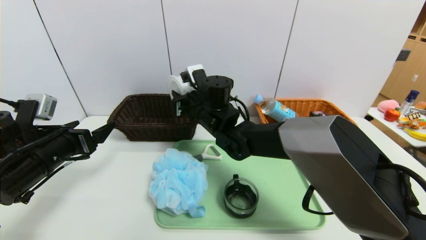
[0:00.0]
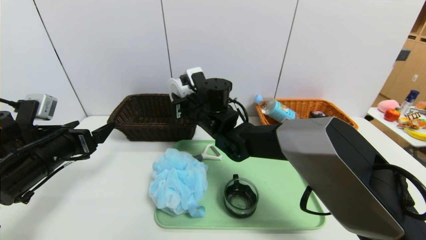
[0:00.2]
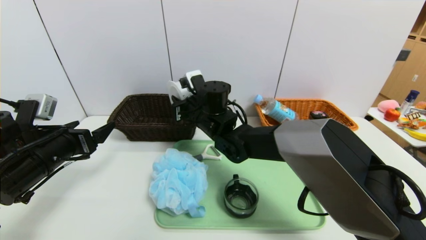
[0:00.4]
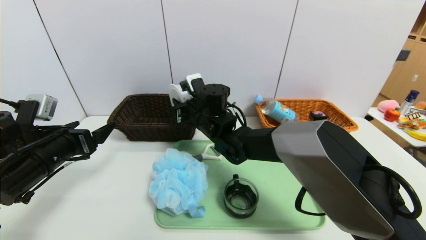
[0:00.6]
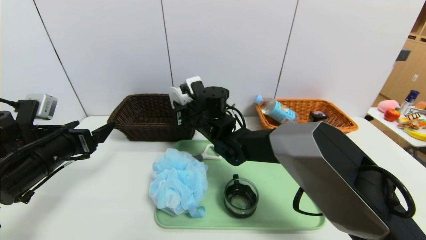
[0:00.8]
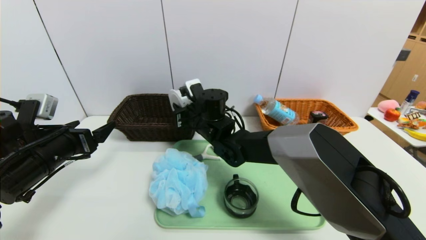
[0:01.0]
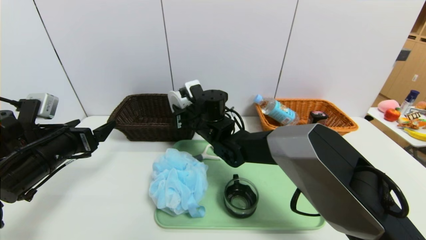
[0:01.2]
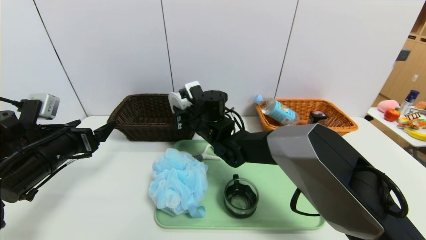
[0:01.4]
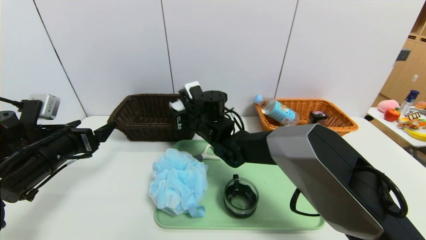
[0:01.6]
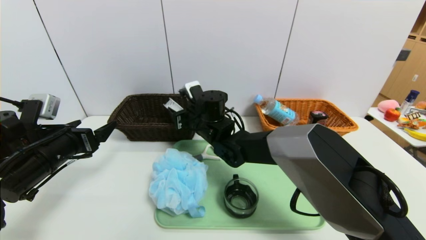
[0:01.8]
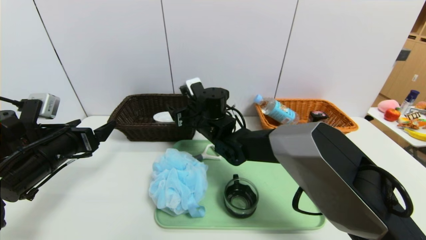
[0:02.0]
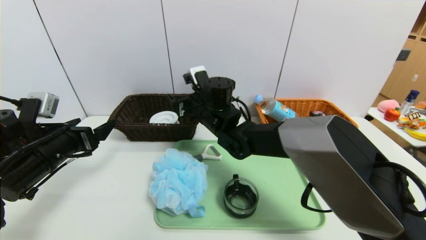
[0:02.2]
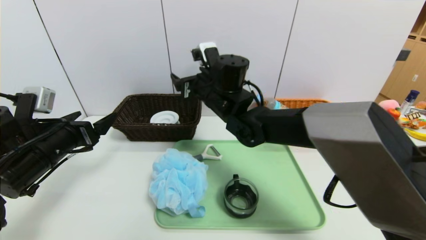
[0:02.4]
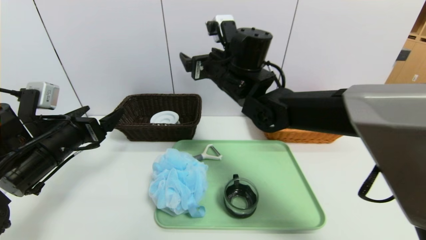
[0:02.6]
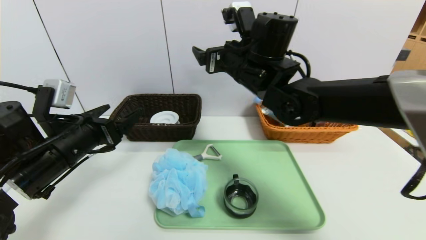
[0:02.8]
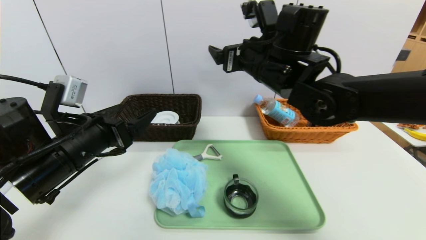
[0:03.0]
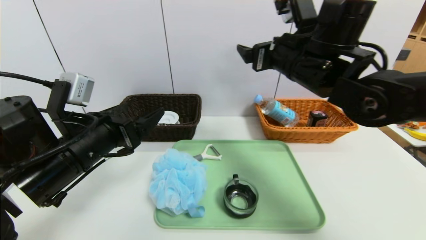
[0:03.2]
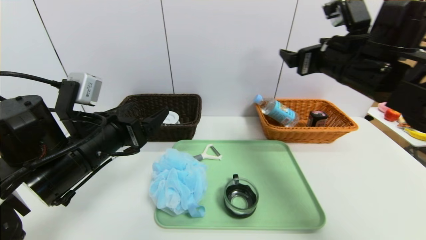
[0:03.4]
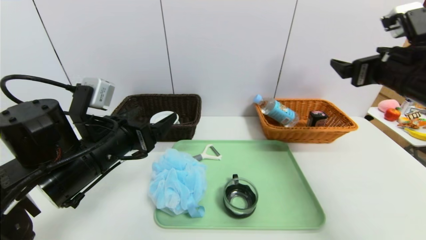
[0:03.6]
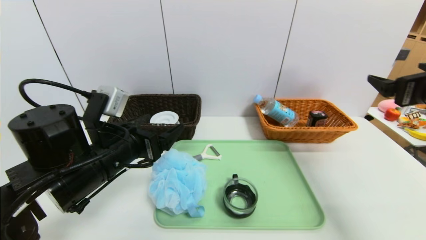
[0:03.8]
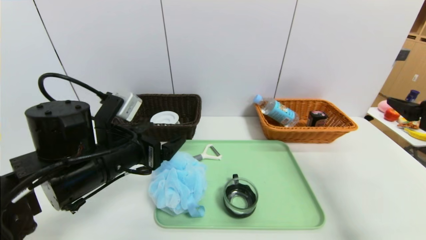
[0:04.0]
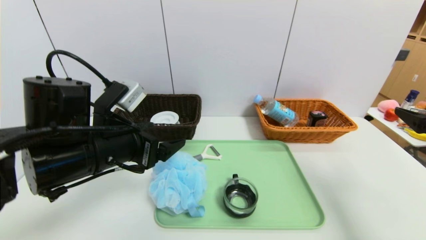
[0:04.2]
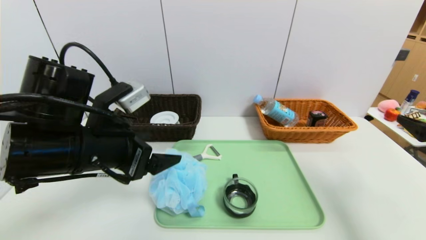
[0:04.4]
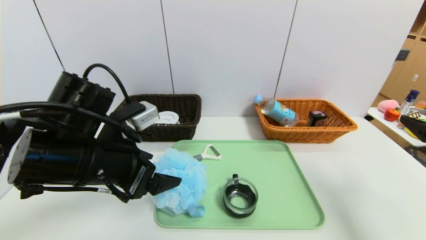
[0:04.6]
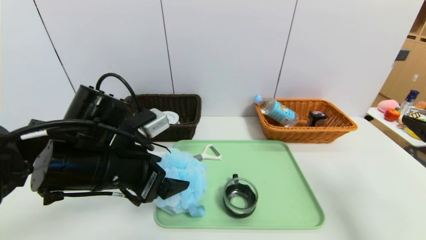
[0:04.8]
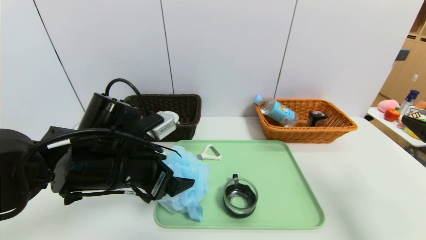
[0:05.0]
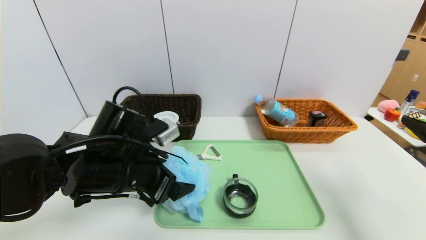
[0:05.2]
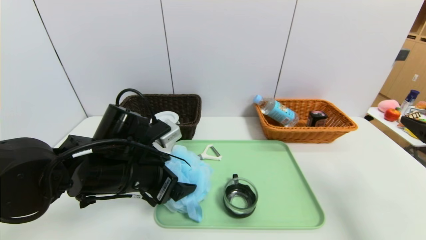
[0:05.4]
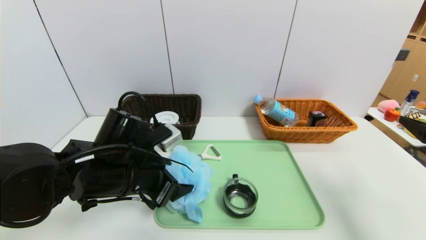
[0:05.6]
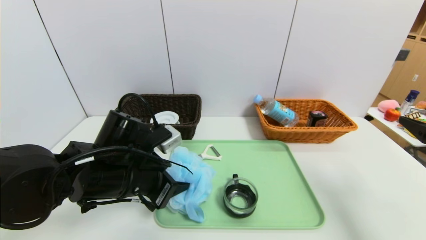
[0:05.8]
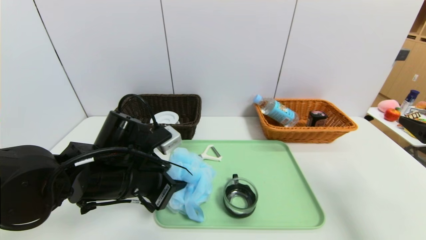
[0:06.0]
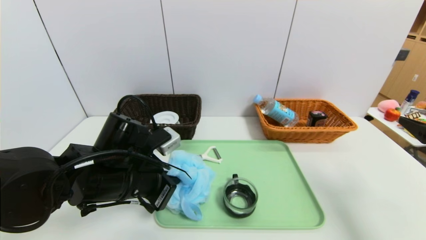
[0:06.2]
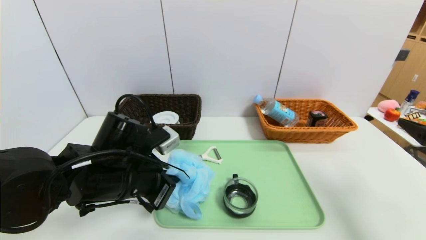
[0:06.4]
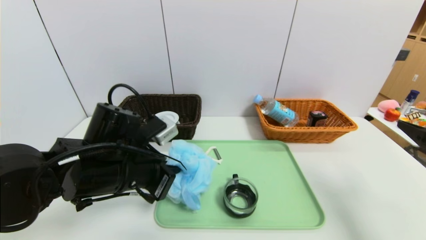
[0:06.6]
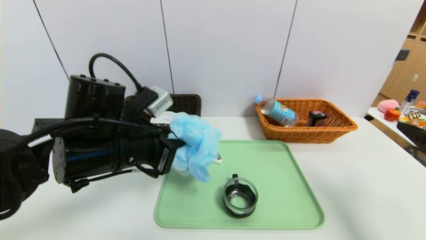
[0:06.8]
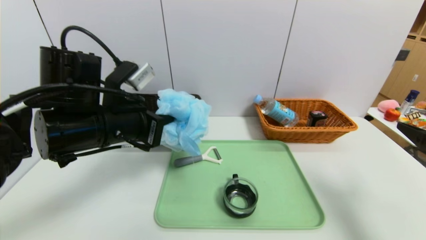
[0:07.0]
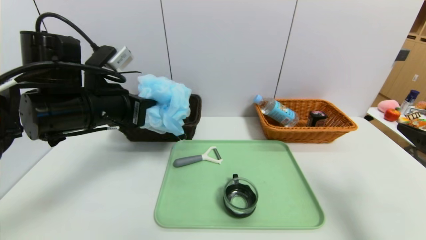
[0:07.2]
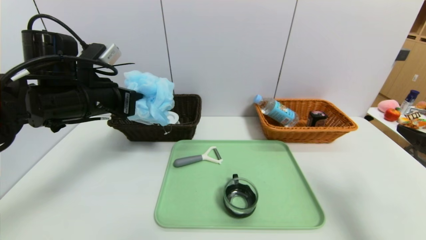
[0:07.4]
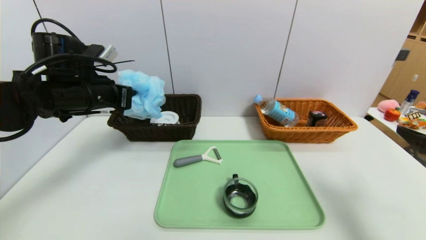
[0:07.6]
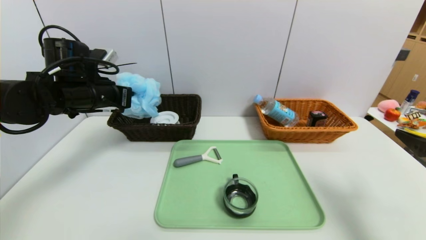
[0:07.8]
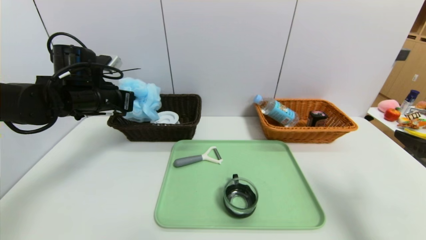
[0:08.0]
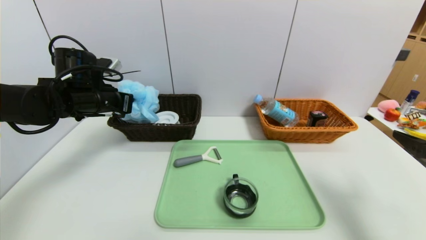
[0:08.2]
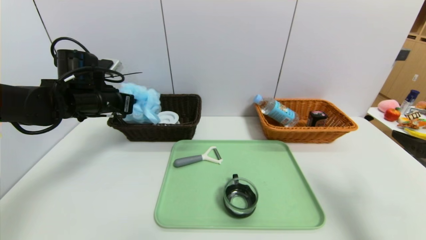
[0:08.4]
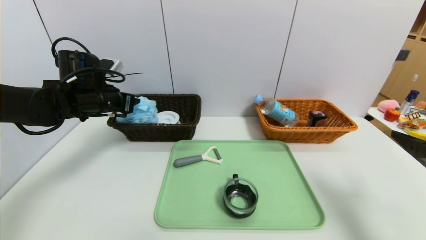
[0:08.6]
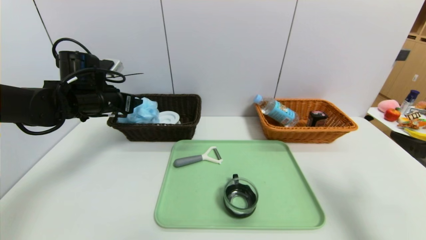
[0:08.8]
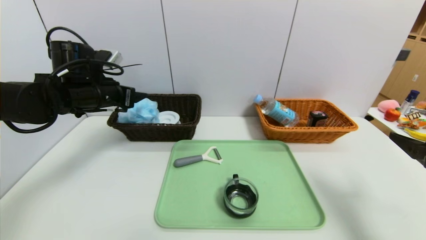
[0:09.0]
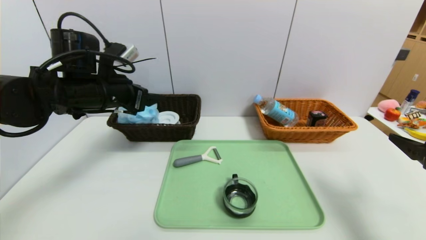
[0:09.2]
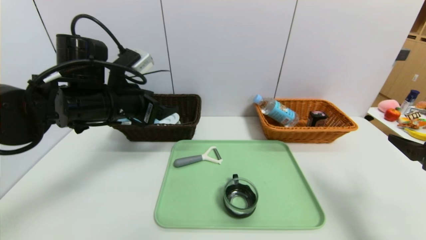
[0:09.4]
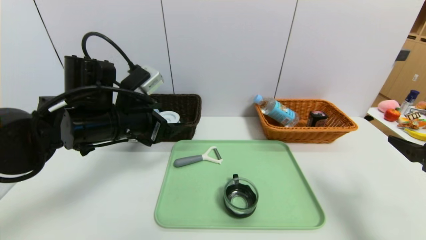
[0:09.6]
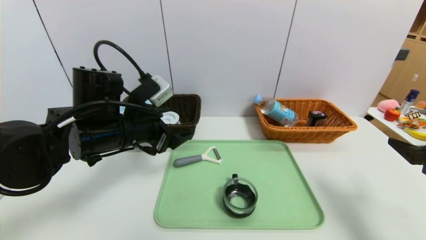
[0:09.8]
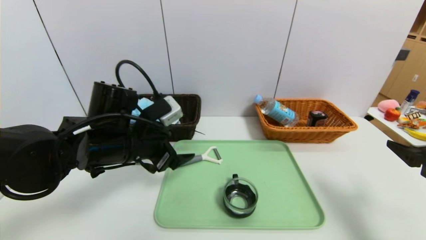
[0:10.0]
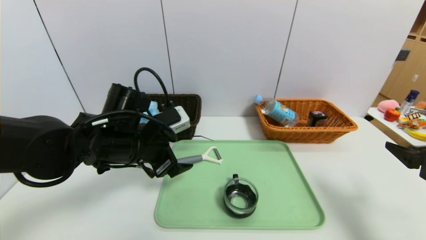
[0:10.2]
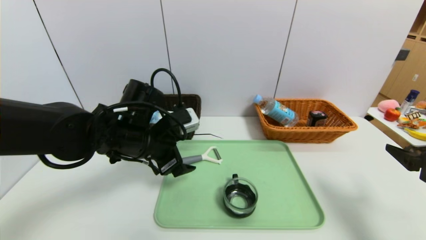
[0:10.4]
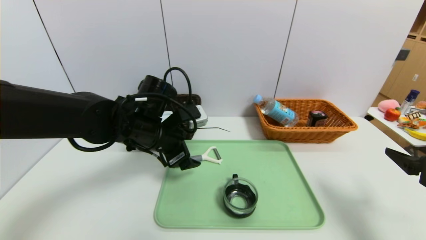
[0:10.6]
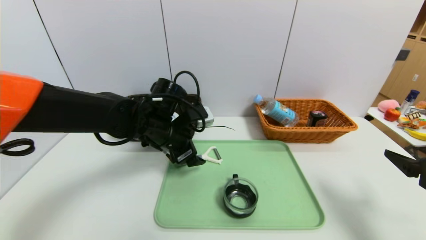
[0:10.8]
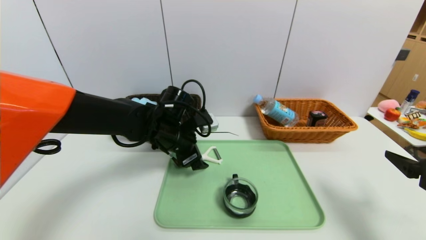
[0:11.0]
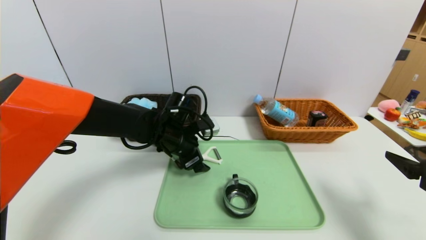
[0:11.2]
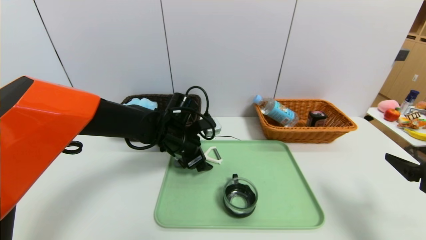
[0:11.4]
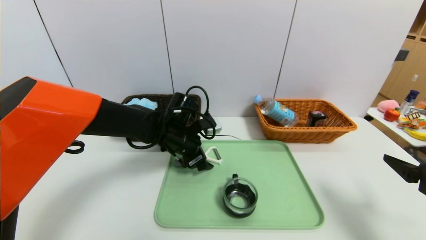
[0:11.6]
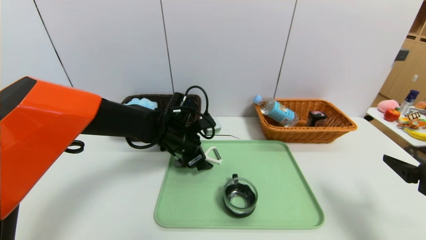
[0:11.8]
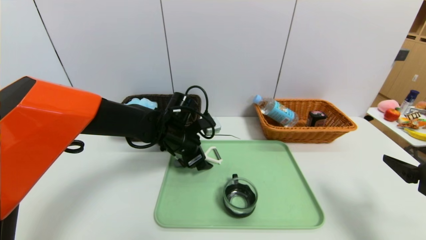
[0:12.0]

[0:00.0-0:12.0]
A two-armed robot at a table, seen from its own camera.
Task of the whole recording: place the food in the right basket with the right gripper, and place the non food items in the left basket with the left gripper.
Step, 0:02.0 to 0:08.8: Grasp the shower sphere and put it in the left basket.
0:00.0 to 0:01.6: The grippers make only small movements.
0:01.6 to 0:03.0: The left gripper shifts roughly 10 cm to the right. The right gripper is displaced upward and to the right by approximately 20 cm, and opens up.
0:03.0 to 0:04.4: The right gripper heads to the right and backward, covering approximately 30 cm; the left gripper moves some 5 cm.
0:04.4 to 0:06.0: The left gripper goes roughly 10 cm downward, and closes.
0:06.0 to 0:07.6: The left gripper is displaced forward, to the left and upward by some 15 cm.
0:07.6 to 0:09.0: The left gripper opens up.
0:09.0 to 0:10.4: The left gripper travels to the right, backward and downward by roughly 15 cm.
0:10.4 to 0:12.0: The left gripper goes roughly 10 cm forward and downward.

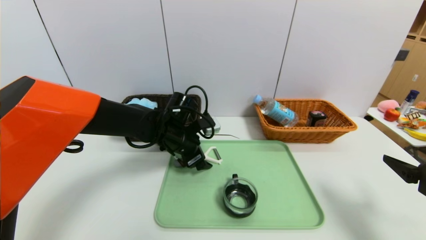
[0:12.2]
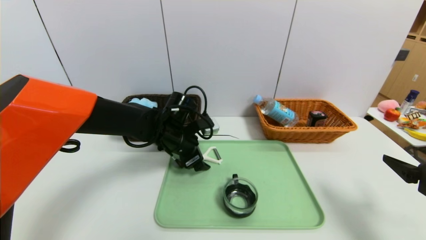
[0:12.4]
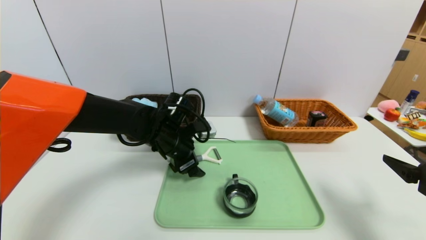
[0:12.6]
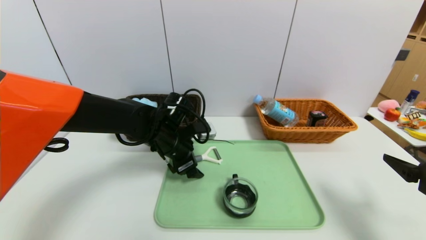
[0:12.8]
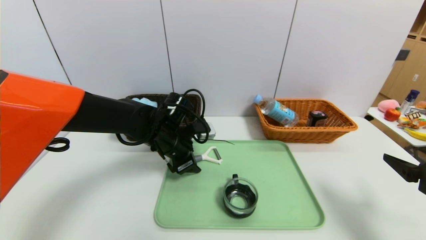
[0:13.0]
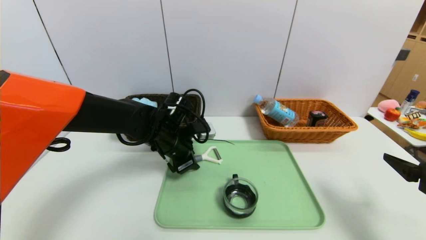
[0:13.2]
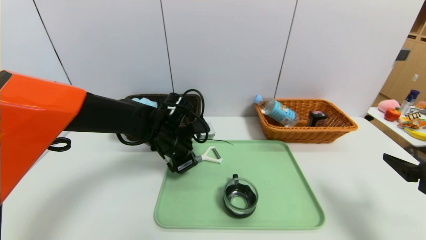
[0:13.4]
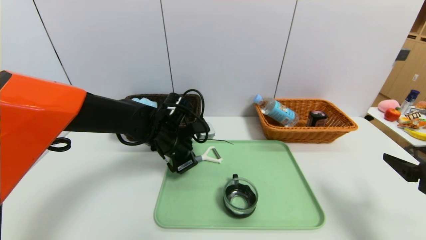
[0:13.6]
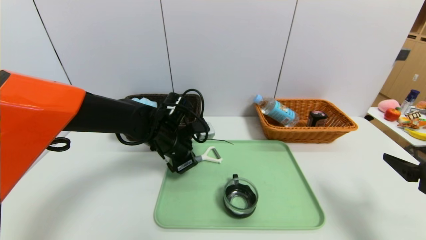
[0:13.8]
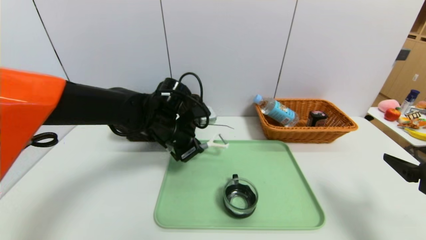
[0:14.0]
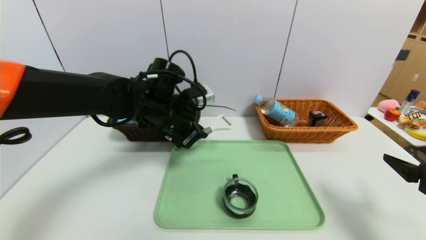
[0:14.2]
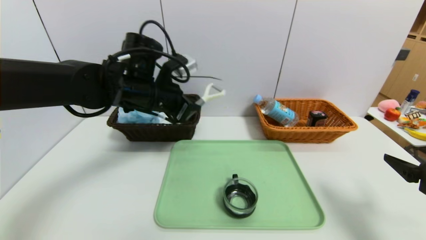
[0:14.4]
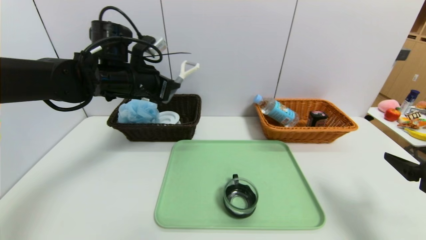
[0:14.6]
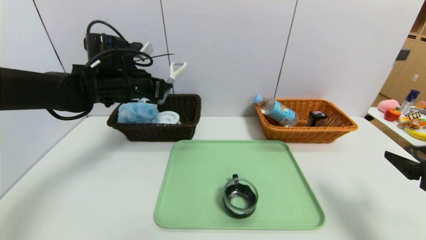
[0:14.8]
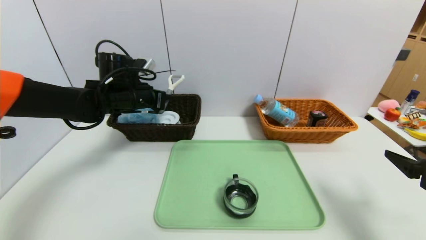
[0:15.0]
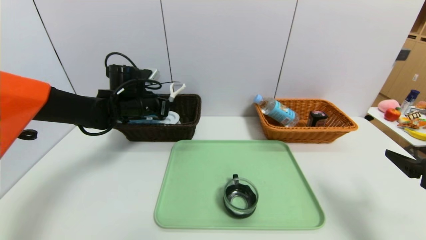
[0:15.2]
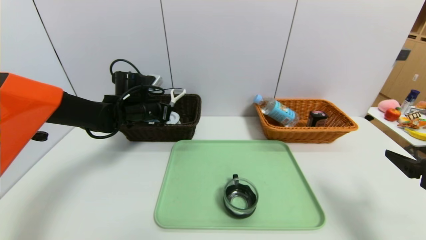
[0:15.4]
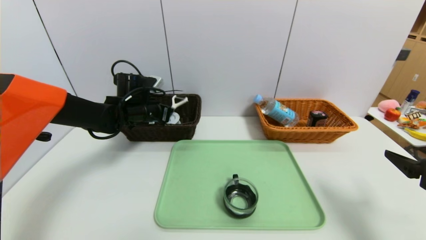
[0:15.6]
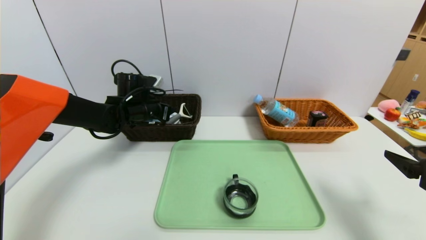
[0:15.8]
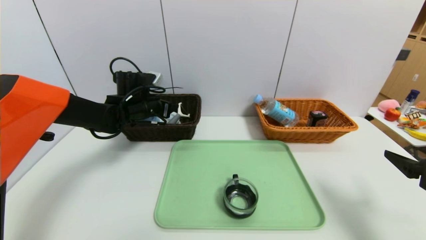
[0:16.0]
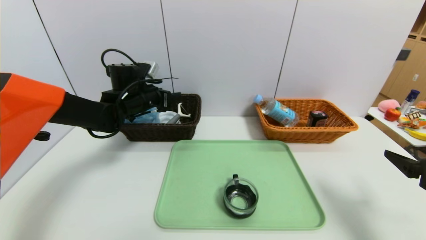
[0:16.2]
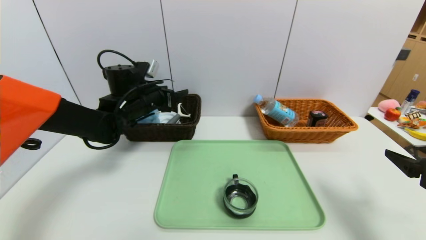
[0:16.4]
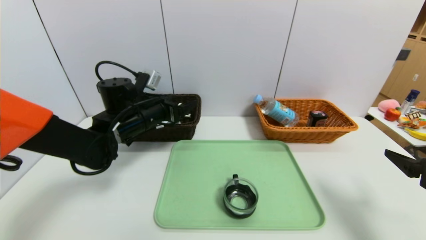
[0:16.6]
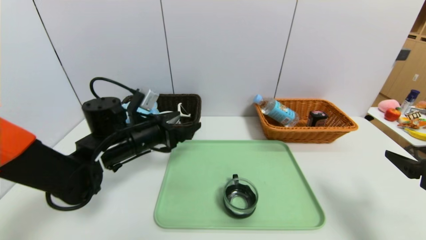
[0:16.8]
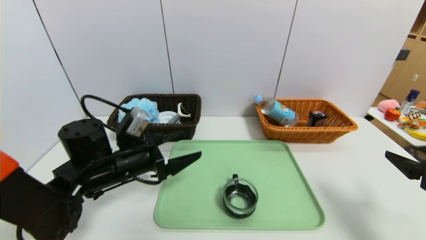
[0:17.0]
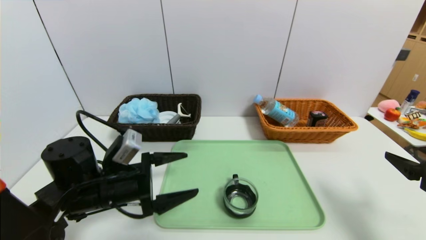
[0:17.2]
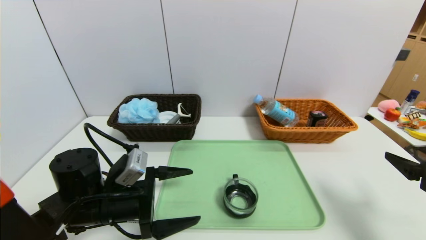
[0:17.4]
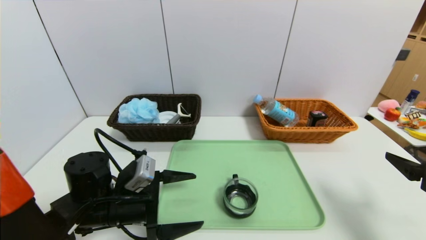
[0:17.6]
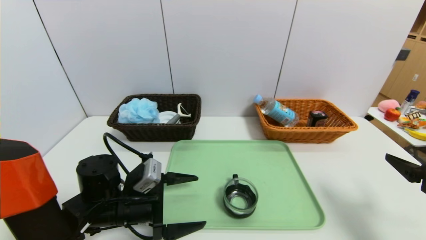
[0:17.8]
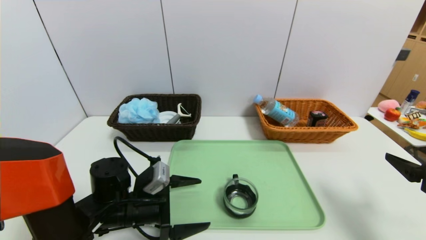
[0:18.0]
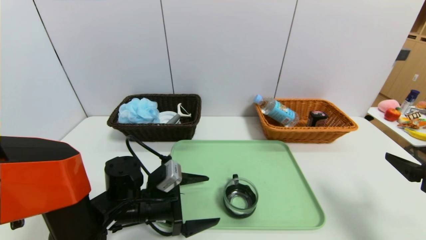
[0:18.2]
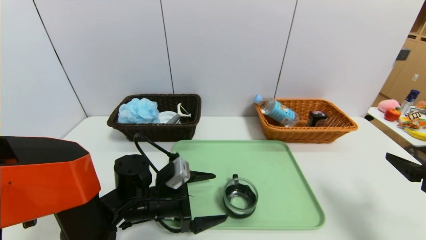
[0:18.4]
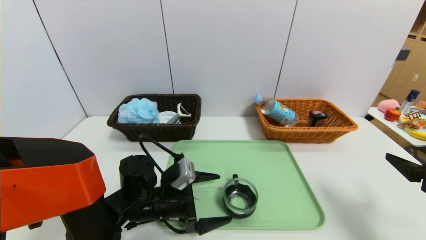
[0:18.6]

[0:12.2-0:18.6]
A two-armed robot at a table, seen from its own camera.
Task of the whole recording: place the food in the right basket with the right gripper, and place the non food items in the left basket with the left gripper.
Step, 0:12.2 to 0:15.8: Grasp the peeler and put it in the left basket.
0:12.2 to 0:13.8: The left gripper closes.
0:13.8 to 0:15.4: The left gripper travels to the left and forward by some 10 cm, and reaches roughly 15 cm upward, then returns.
0:15.4 to 0:17.0: The left gripper travels backward by approximately 15 cm, and opens its fingers.
0:17.0 to 0:18.6: The left gripper heads downward and to the right, covering about 10 cm.
